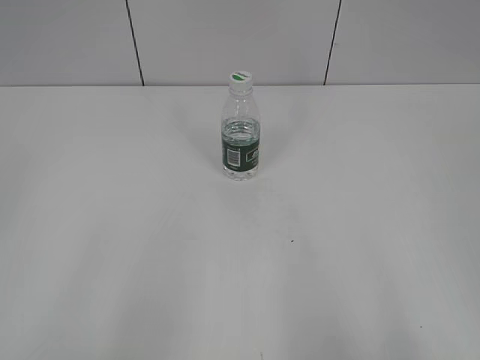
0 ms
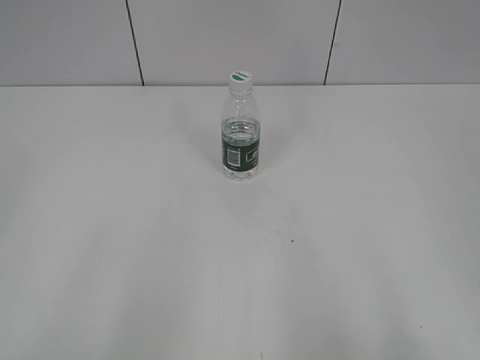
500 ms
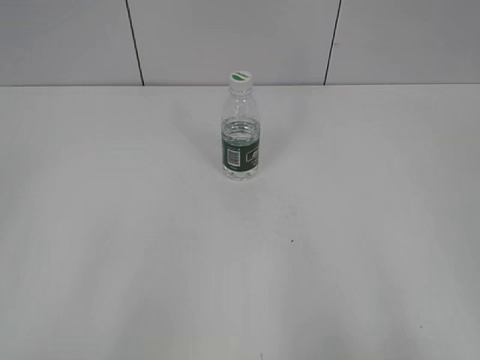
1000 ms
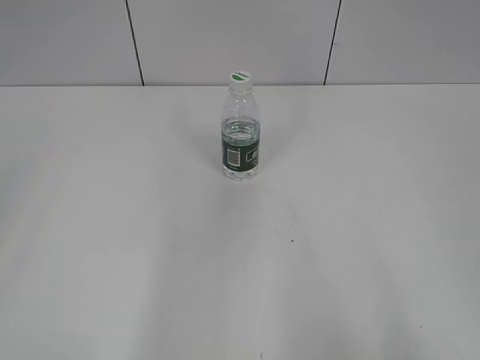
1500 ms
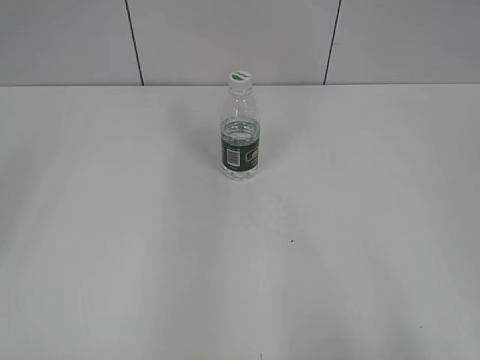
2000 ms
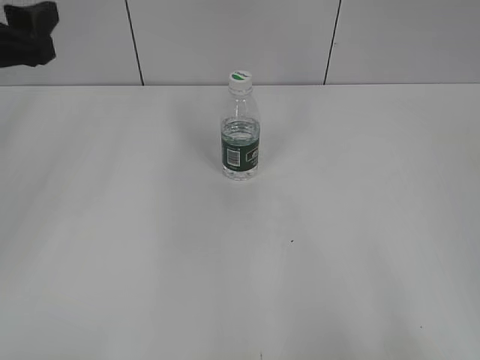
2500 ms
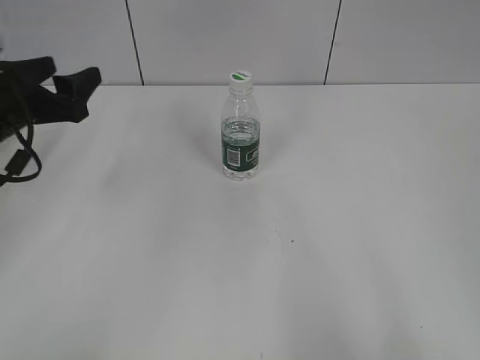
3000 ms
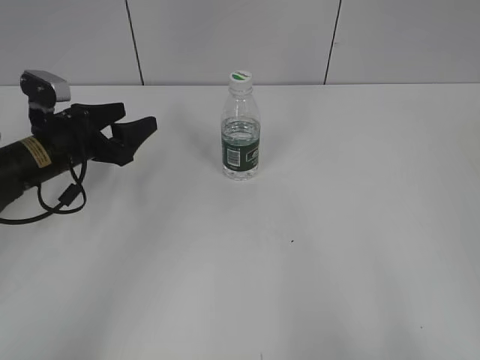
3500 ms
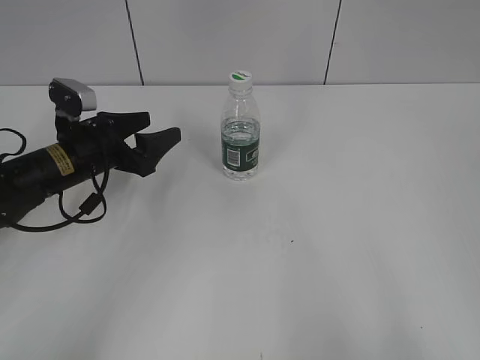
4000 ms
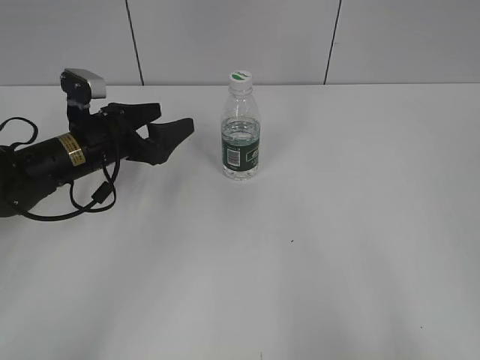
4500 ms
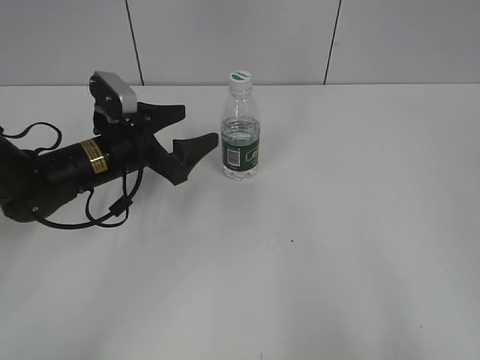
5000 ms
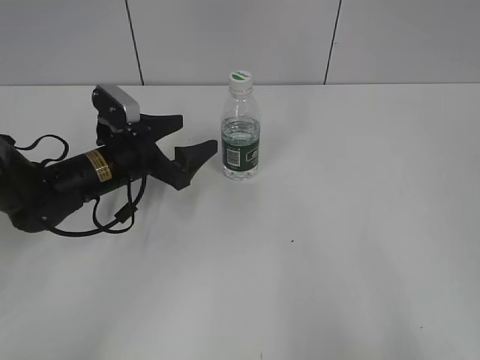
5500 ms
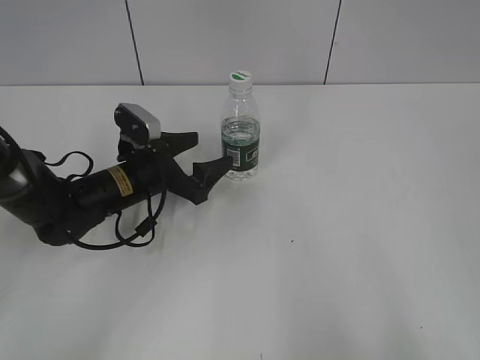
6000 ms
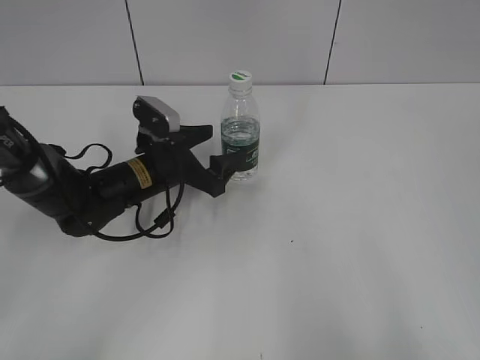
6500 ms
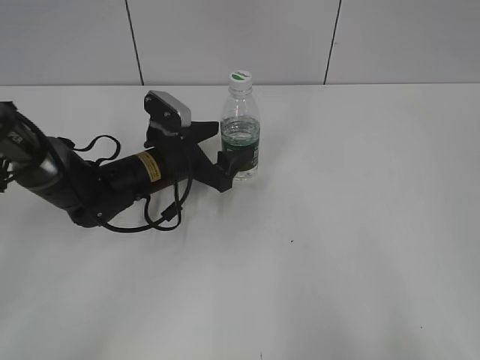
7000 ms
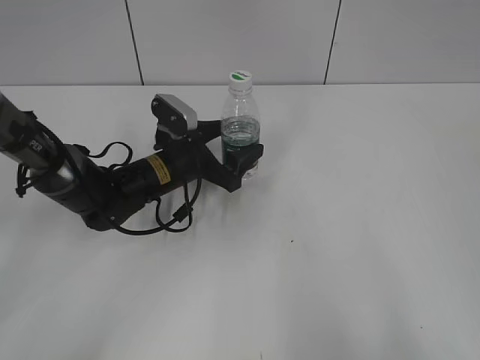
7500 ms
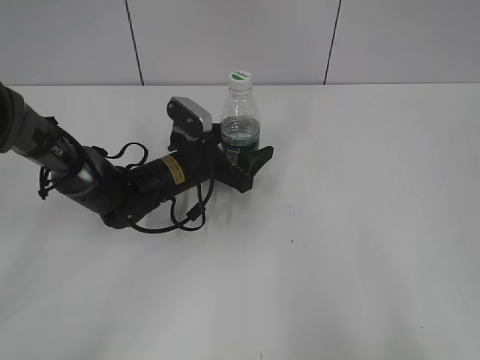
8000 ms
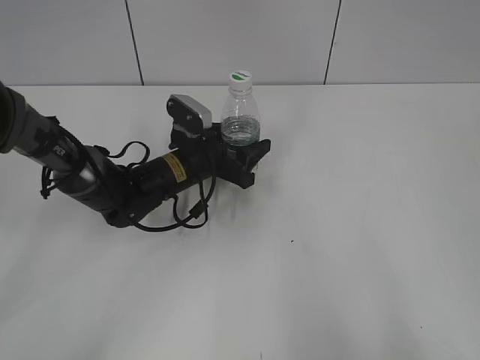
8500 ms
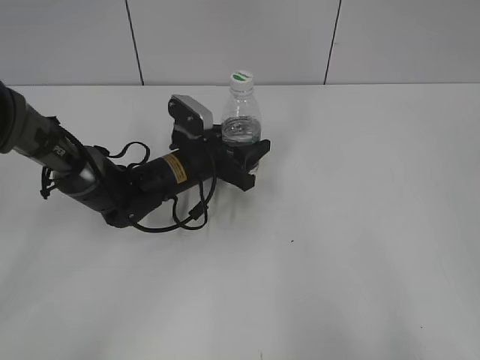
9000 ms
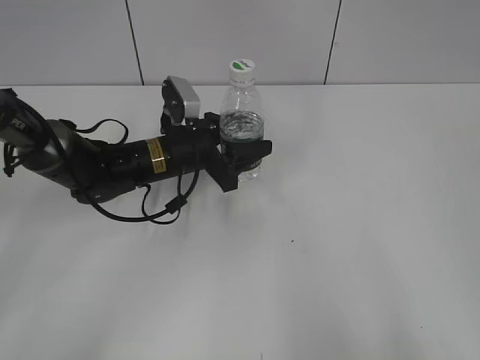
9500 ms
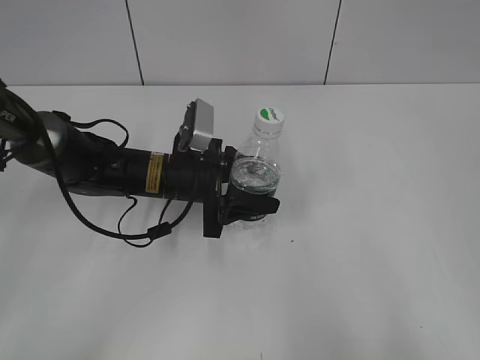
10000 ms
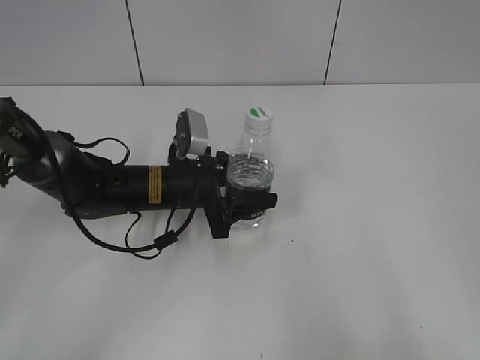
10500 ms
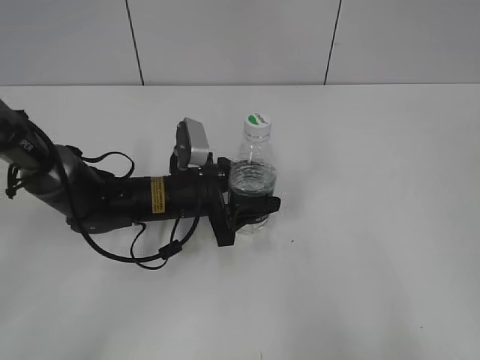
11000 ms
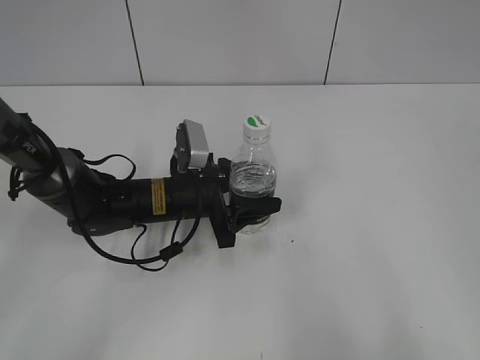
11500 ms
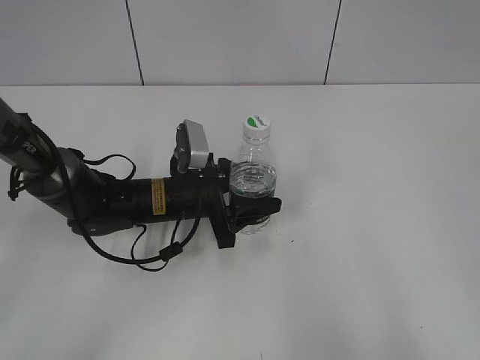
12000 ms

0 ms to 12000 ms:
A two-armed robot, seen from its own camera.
Step, 0 ms to 8500 ms: Grasp the bottle and move it to the center of the table with the left gripper.
2000 ms to 4000 ms: The left gripper travels downward and forward by about 30 cm.
4000 ms to 6000 ms: The left gripper moves to the right, approximately 5 cm.
6000 ms to 8000 ms: The left gripper travels to the right by about 5 cm.
8000 ms to 10000 ms: The left gripper moves some 5 cm, and closes up.
10000 ms to 12000 ms: There are only small adjustments of the grippers.

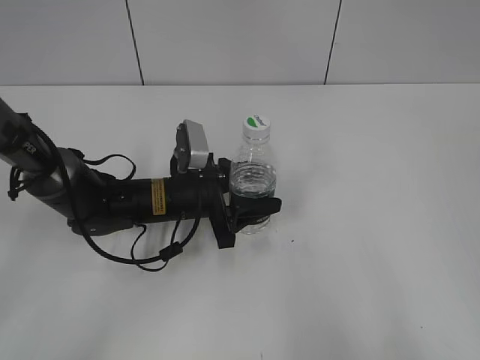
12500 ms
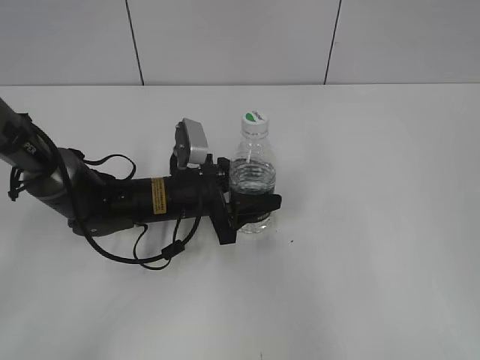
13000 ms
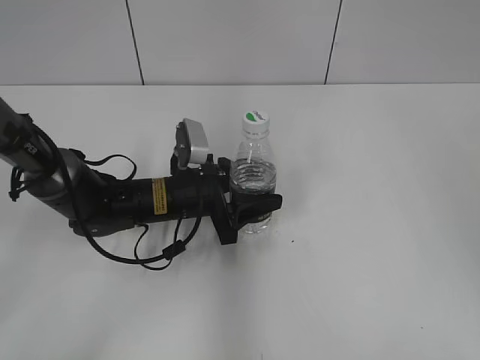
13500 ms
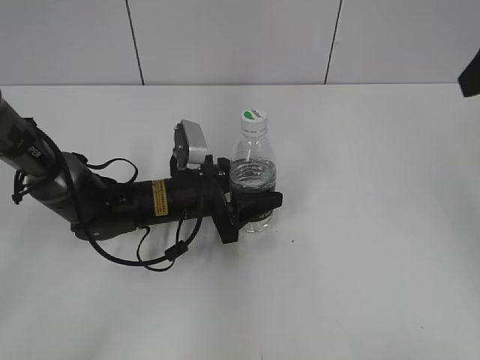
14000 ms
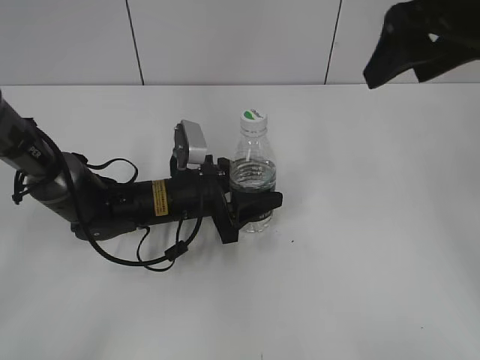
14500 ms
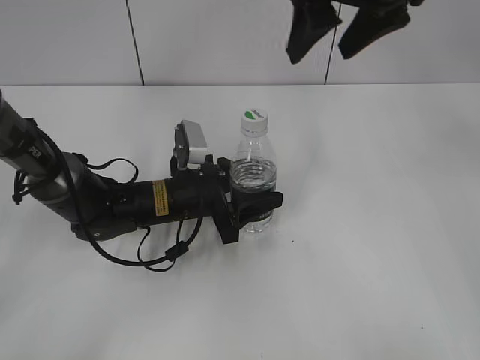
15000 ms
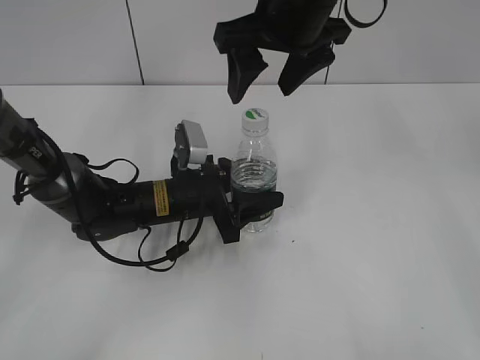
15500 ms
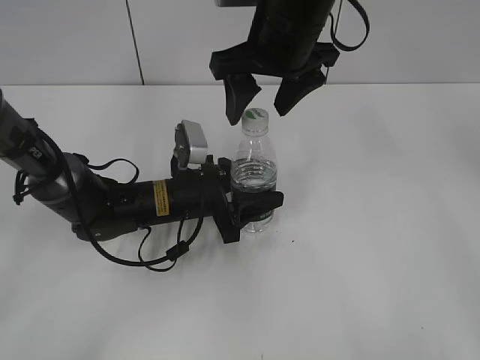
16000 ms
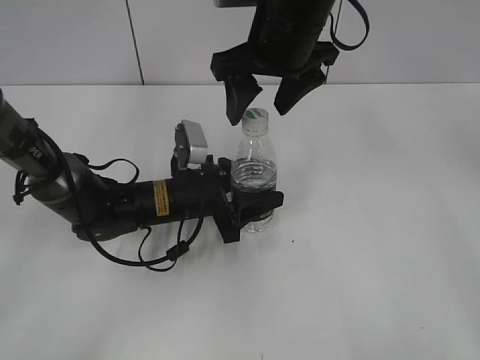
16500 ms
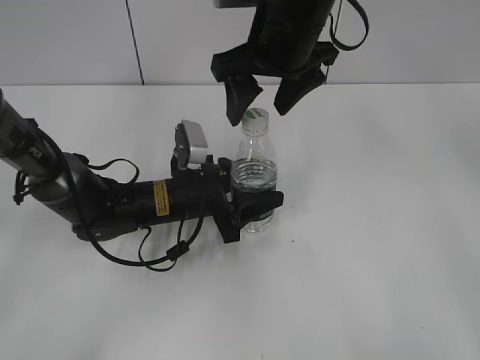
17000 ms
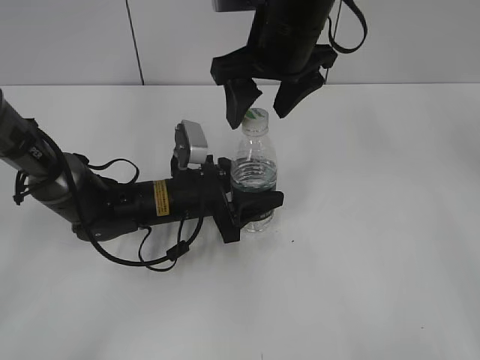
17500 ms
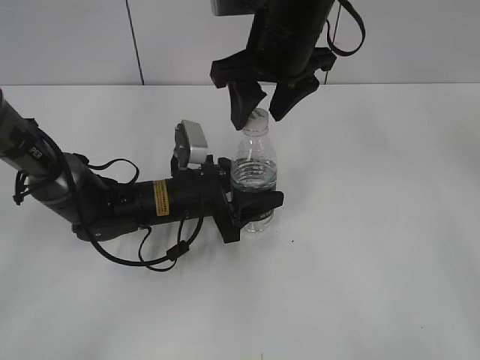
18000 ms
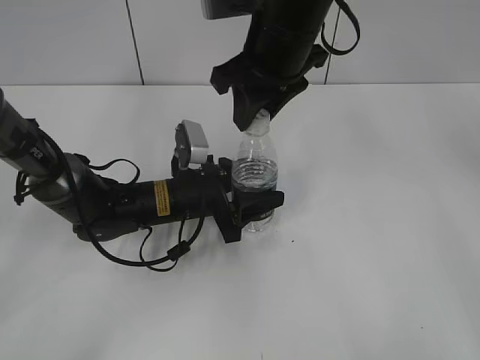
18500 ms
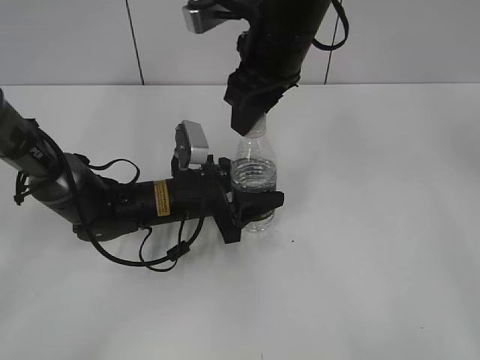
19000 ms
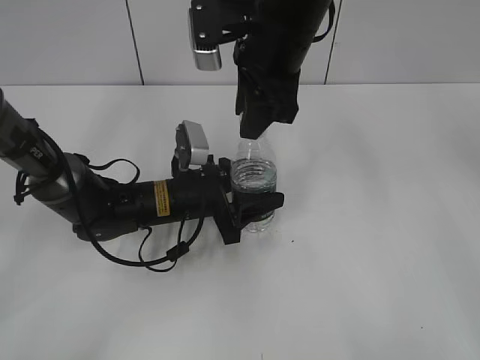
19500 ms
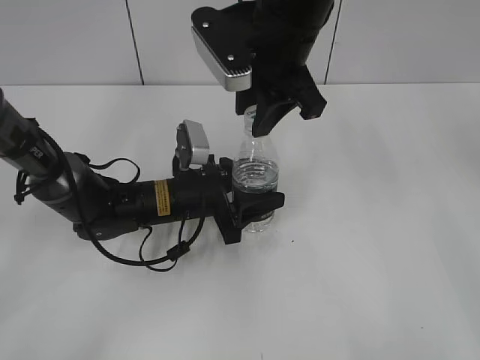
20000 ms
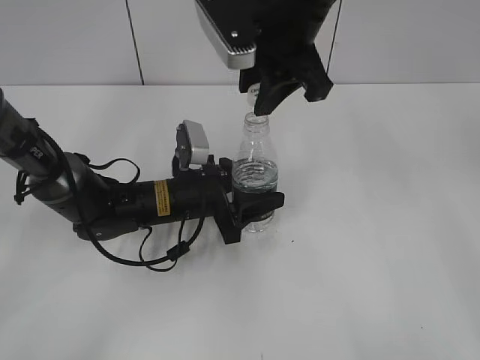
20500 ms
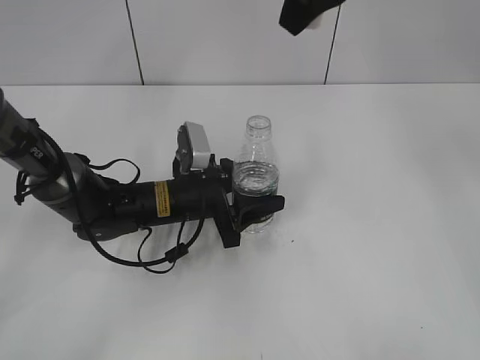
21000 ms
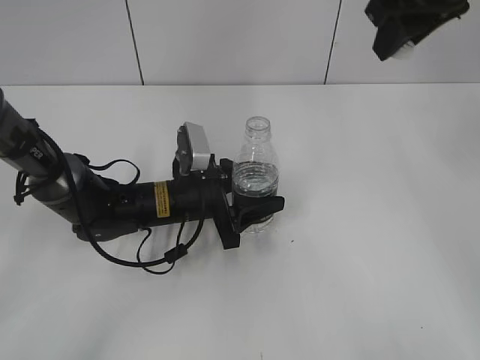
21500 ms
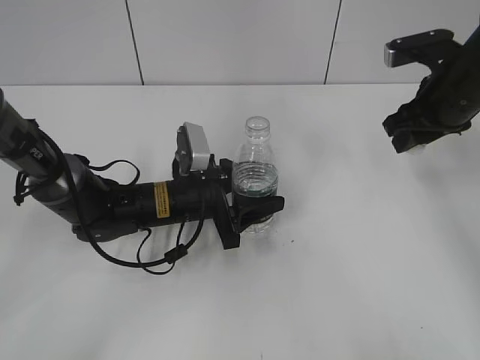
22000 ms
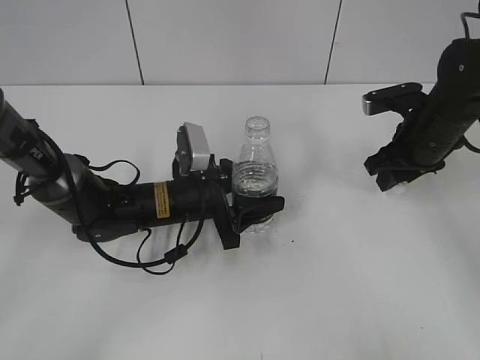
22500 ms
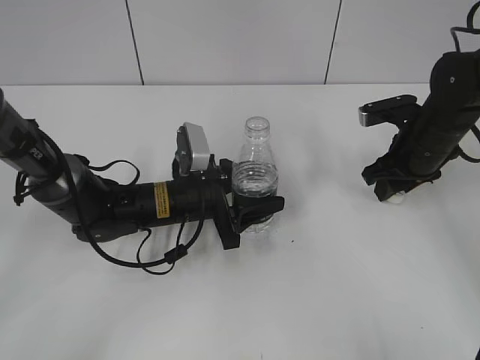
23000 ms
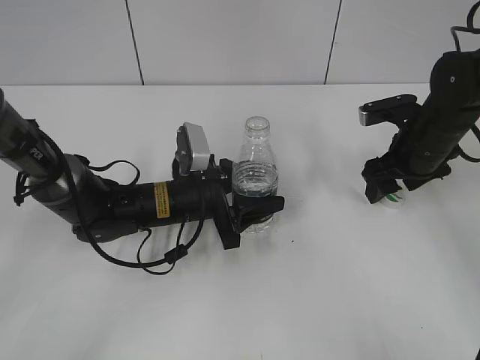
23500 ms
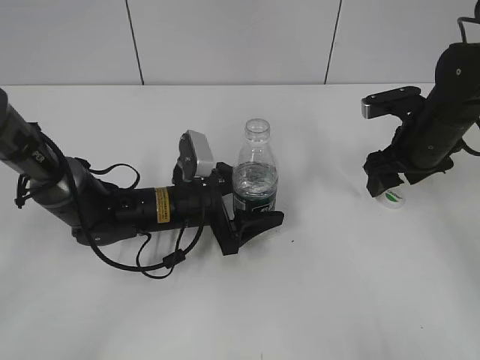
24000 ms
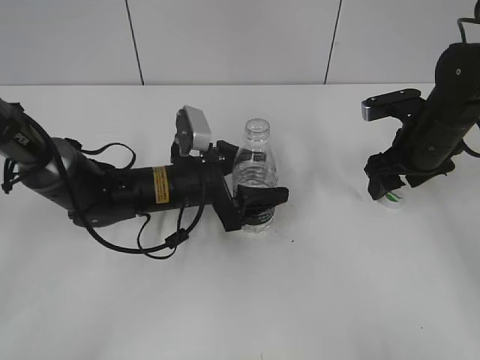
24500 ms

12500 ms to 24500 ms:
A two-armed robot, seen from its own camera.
Step, 14500 ms to 20500 ms: Unscrew the bottle cap with the right gripper while holding the bottle with the left gripper.
Step, 21000 ms to 23500 ms: Place the bottle cap on the table with the right gripper.
12500 ms to 14500 ms: The right gripper travels forward by some 30 cm.
14500 ms to 16500 ms: The right gripper moves to the left, approximately 15 cm.
16500 ms to 18500 ms: The right gripper closes its fingers.
20500 ms to 22500 ms: The right gripper shifts approximately 25 cm to the right and downward.
22500 ms to 24500 ms: The left gripper opens up; the right gripper opens up.

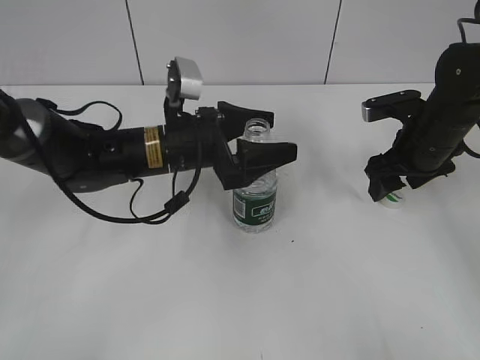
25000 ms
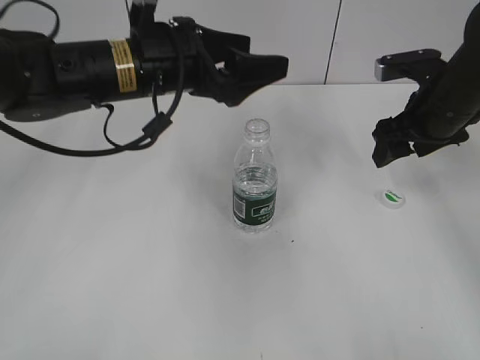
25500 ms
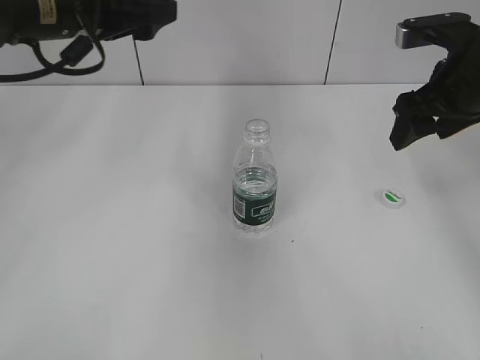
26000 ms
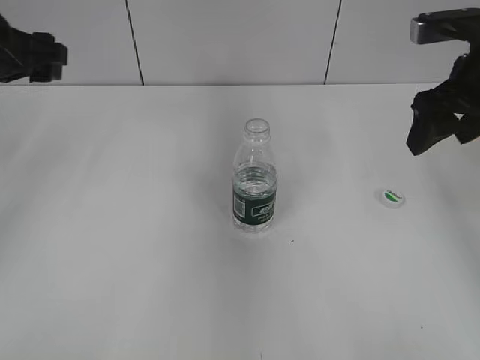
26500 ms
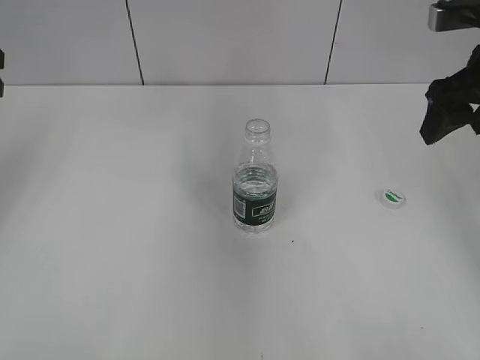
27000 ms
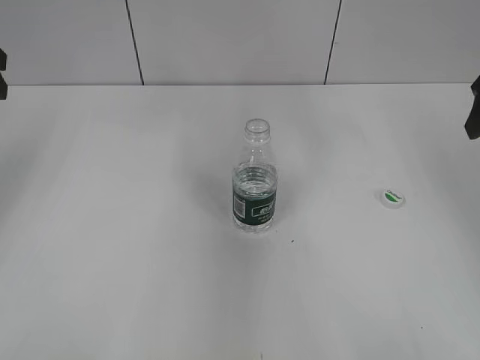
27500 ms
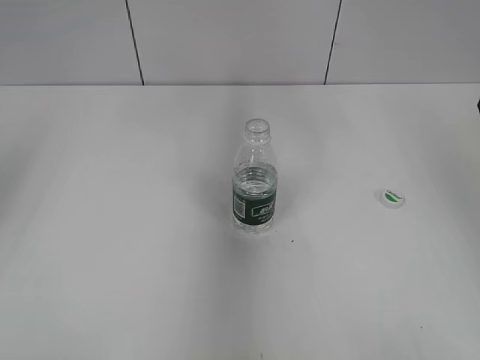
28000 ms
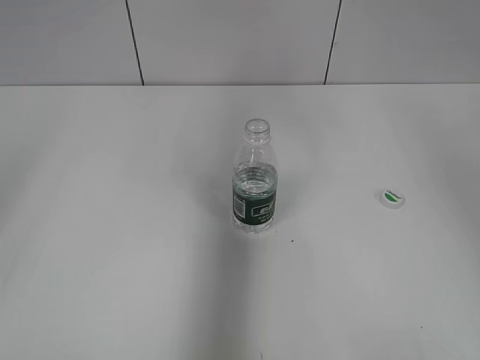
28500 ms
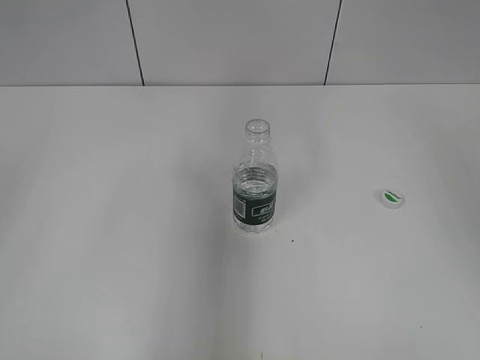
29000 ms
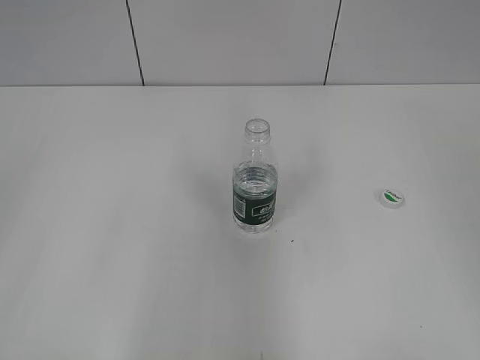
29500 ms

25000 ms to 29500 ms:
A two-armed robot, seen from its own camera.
25000 ms to 27000 ms: The left gripper goes some 30 cm to the left and upward. The right gripper shifts approximately 15 cm upward.
27000 ms to 29500 ms: The right gripper travels backward and upward by approximately 25 cm.
